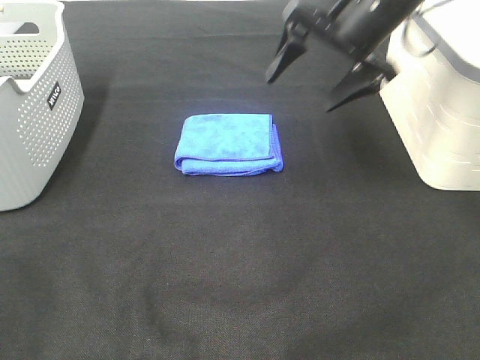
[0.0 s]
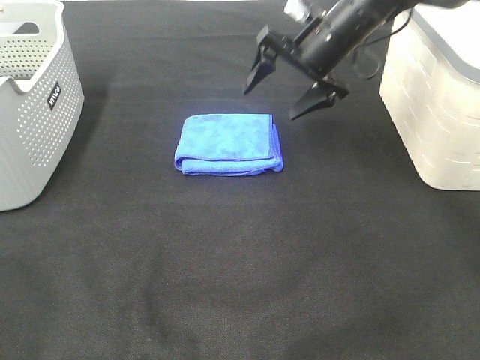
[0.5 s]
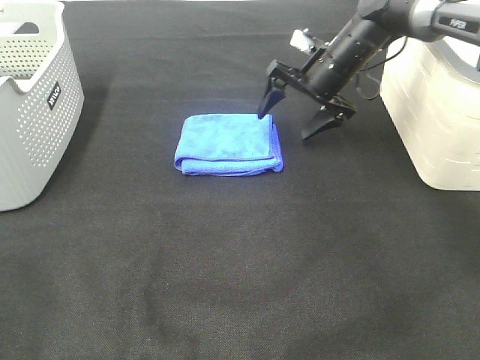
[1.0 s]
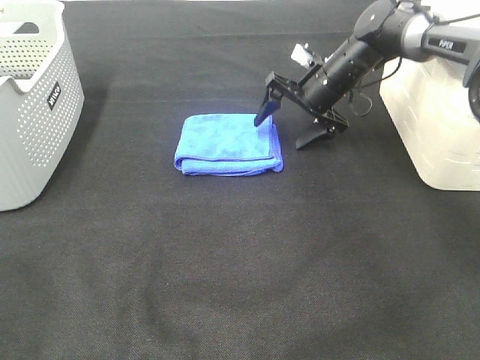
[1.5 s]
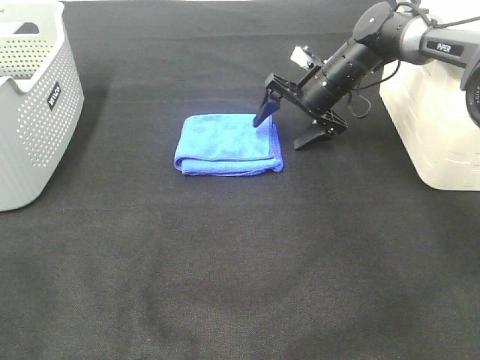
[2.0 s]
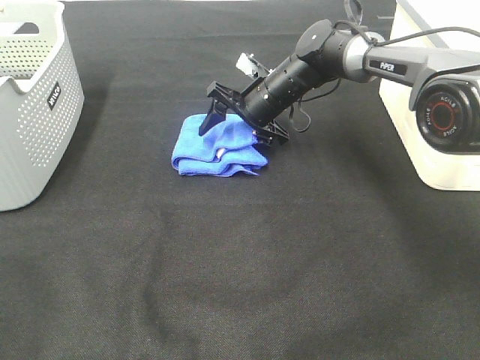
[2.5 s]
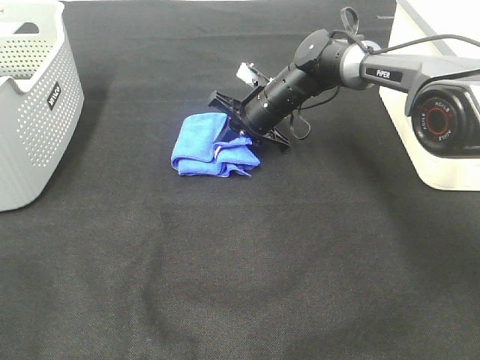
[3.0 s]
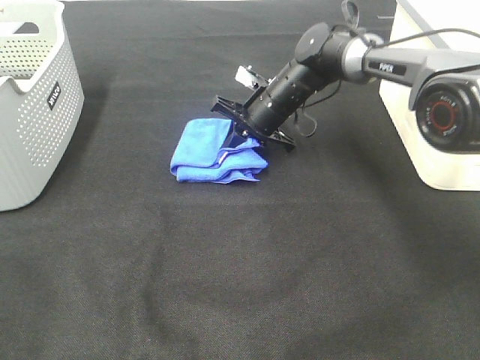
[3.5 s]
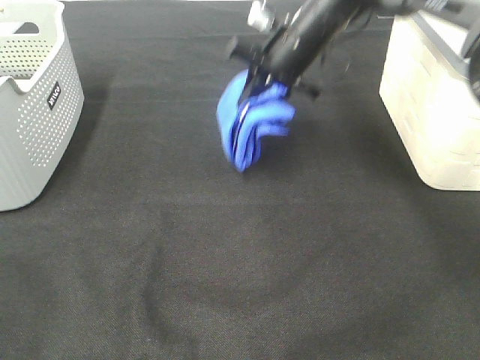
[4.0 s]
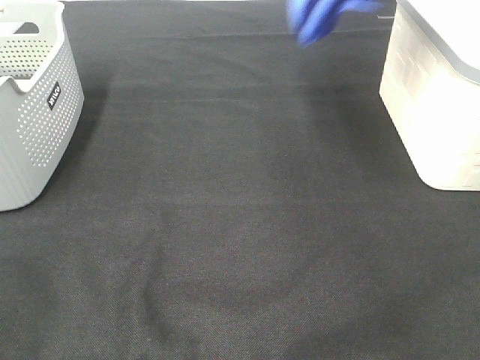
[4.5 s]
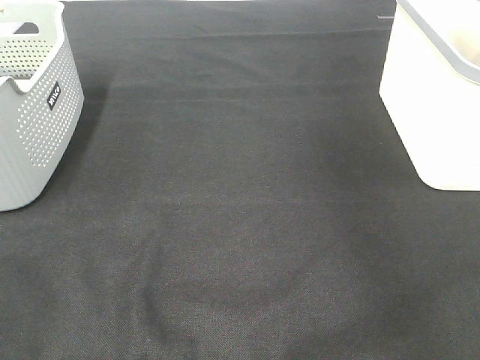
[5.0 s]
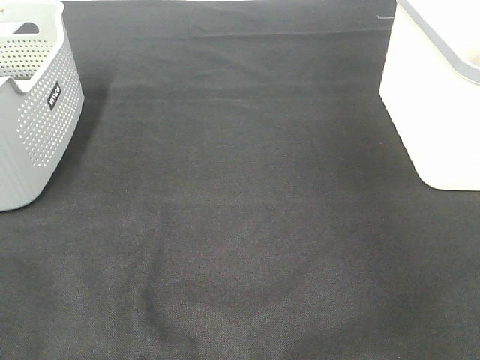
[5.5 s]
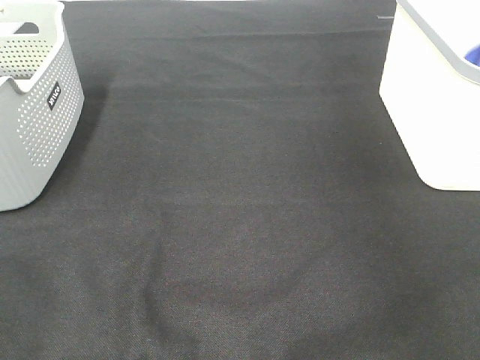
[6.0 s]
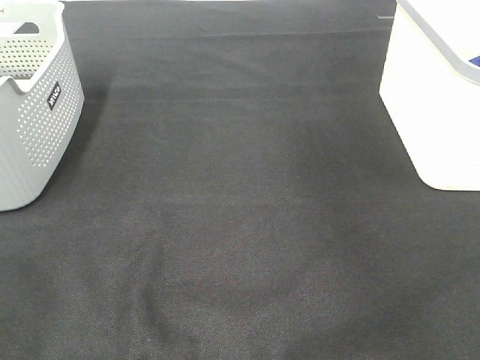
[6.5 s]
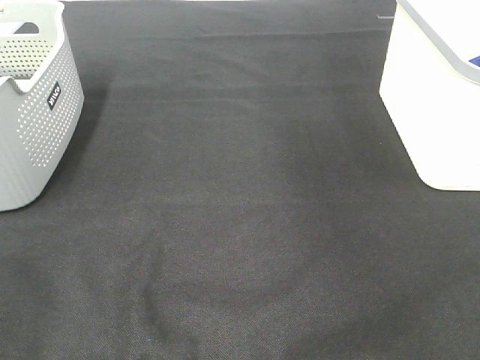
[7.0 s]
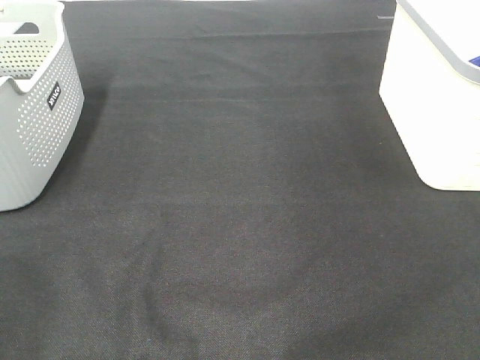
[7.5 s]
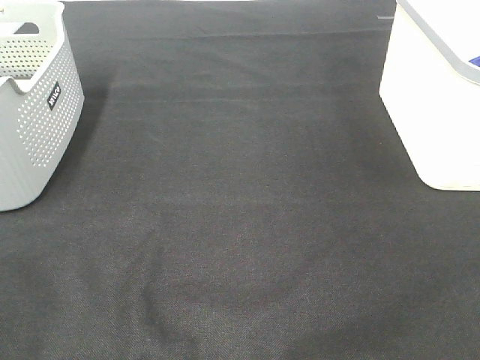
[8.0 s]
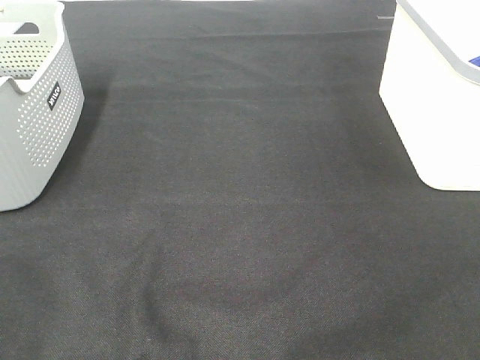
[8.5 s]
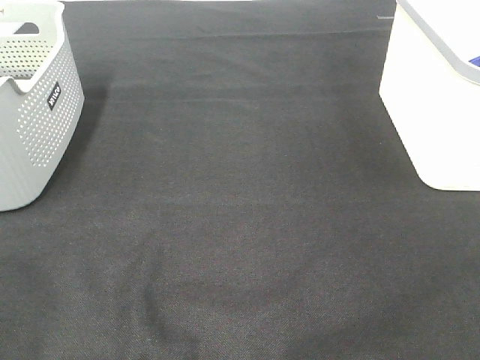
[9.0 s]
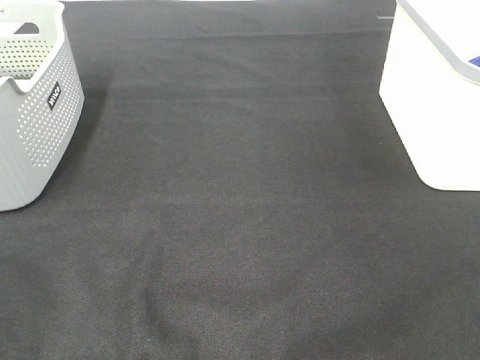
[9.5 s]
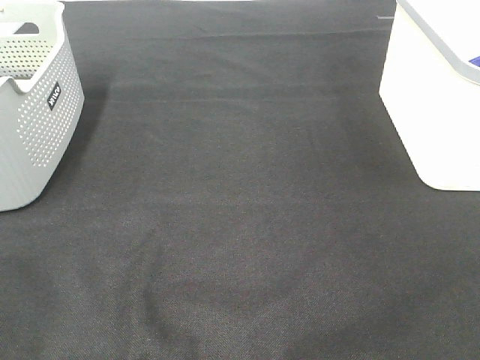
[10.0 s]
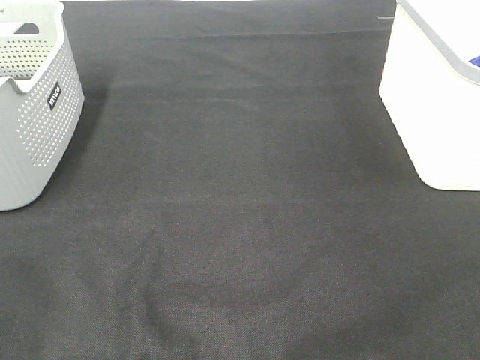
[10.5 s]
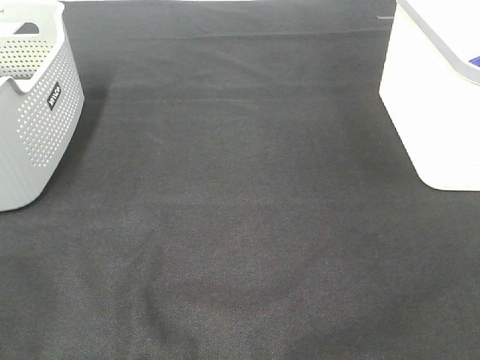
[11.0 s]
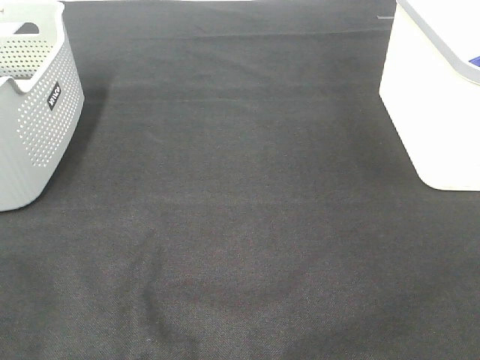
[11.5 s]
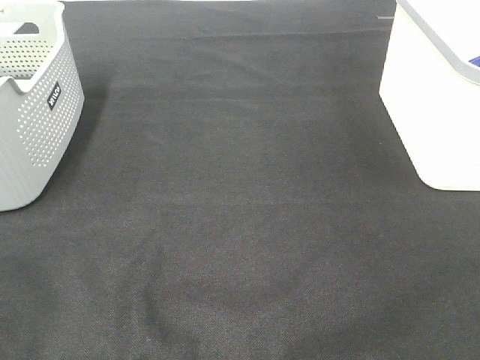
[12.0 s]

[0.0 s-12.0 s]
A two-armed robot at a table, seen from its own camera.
Step, 0.0 to 3.0 s: Right hand: grab the folded blue towel.
Step, 3.5 to 5.5 s: Right hand: place the blue towel in right basket.
0.0 to 2.0 s: The right gripper goes roughly 20 cm downward and forward.
2.0 to 4.0 s: The right gripper goes roughly 10 cm upward and to the left, and closes its fingers.
4.0 to 6.0 s: The right gripper moves to the right and upward, approximately 35 cm, and opens.
10.0 to 12.0 s: Both grippers stay about where they are.
